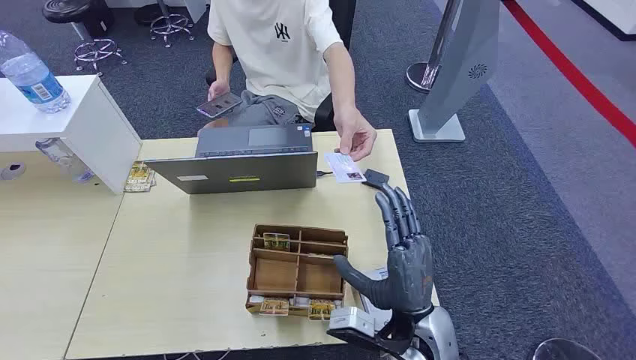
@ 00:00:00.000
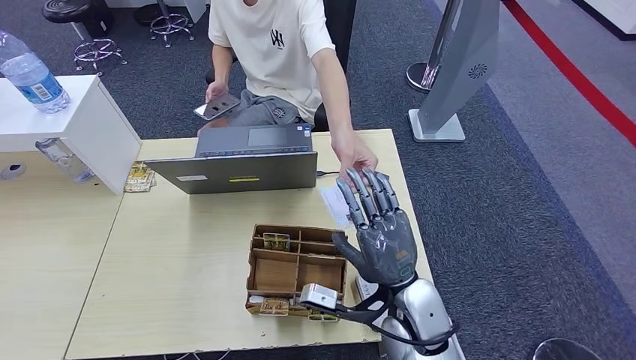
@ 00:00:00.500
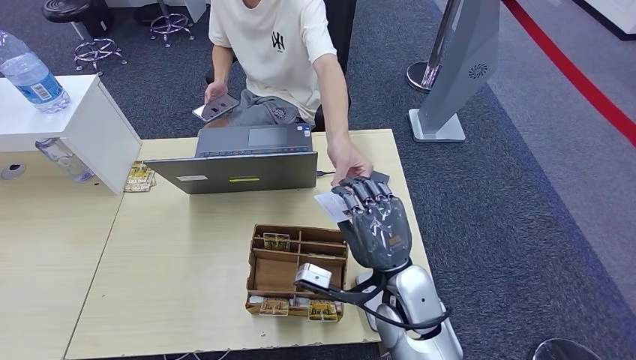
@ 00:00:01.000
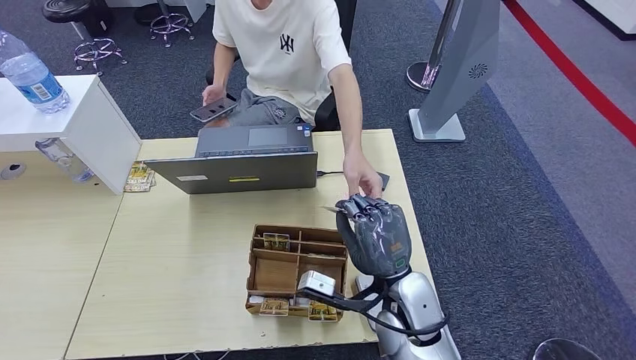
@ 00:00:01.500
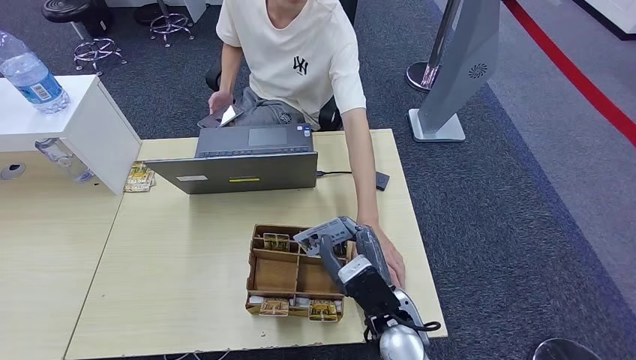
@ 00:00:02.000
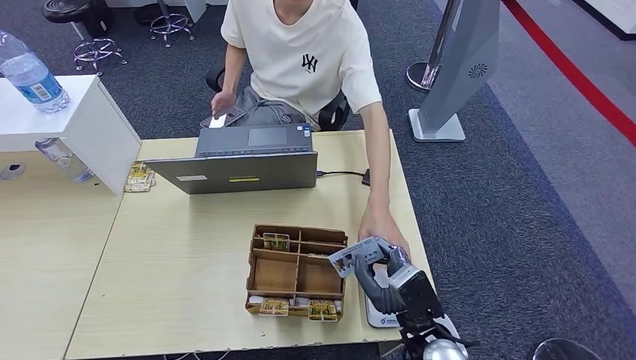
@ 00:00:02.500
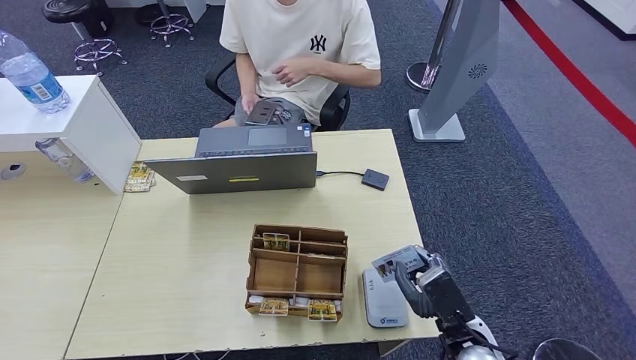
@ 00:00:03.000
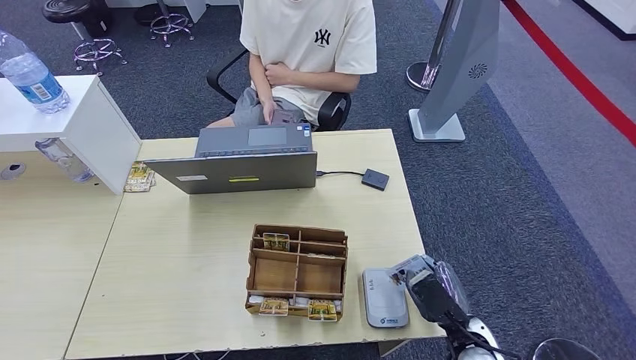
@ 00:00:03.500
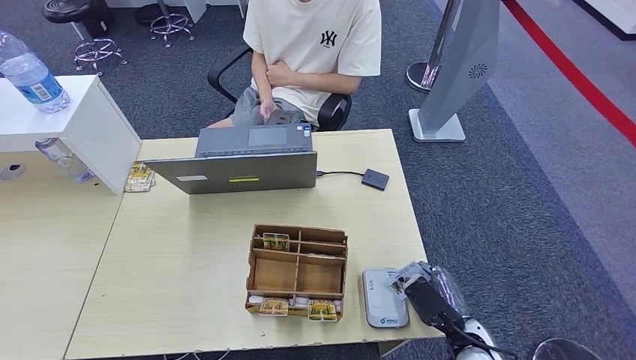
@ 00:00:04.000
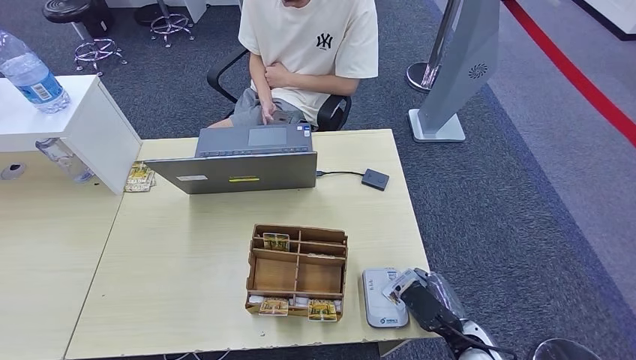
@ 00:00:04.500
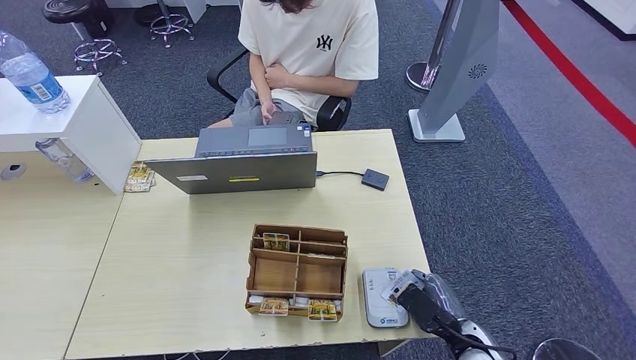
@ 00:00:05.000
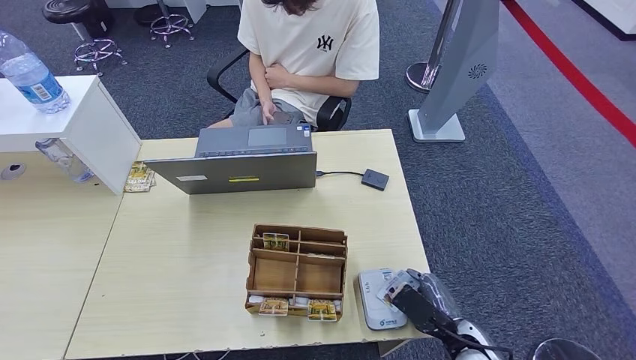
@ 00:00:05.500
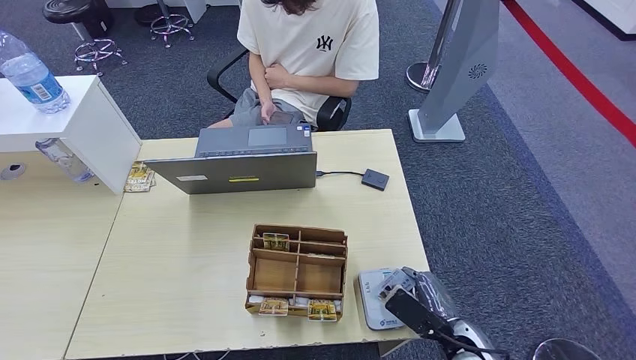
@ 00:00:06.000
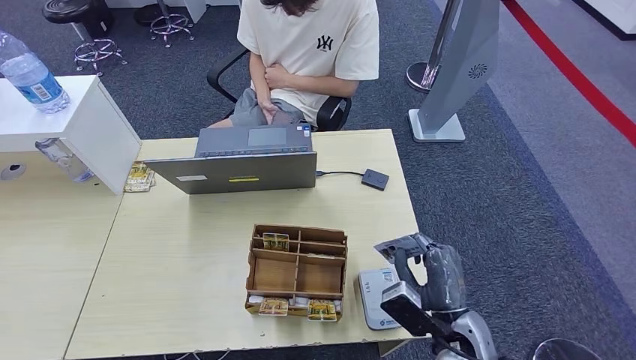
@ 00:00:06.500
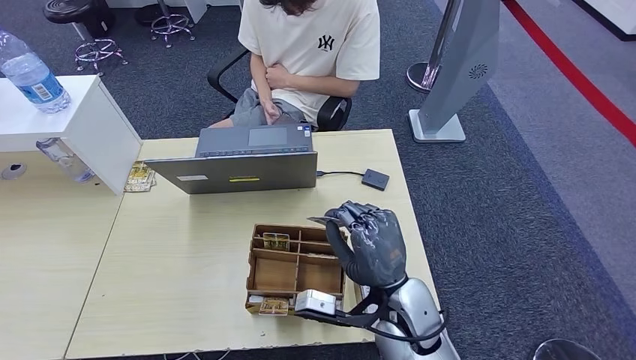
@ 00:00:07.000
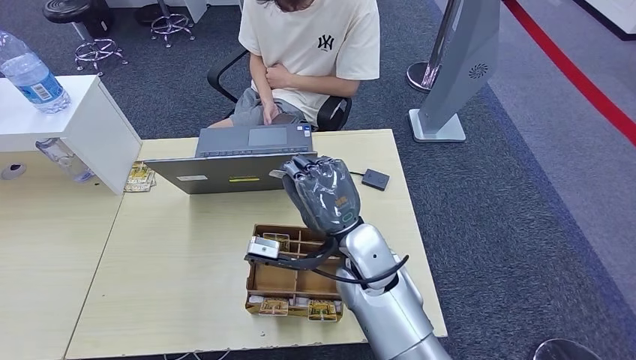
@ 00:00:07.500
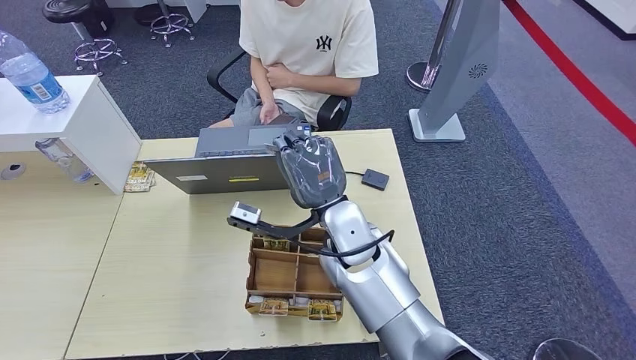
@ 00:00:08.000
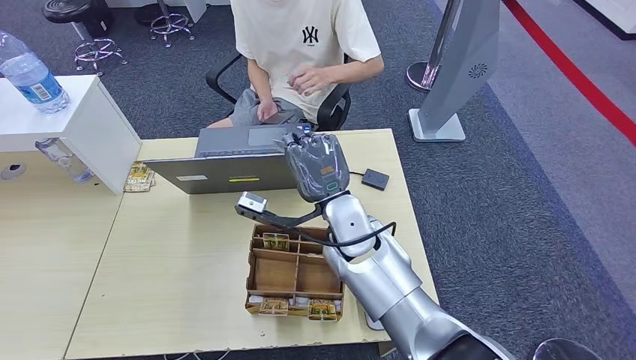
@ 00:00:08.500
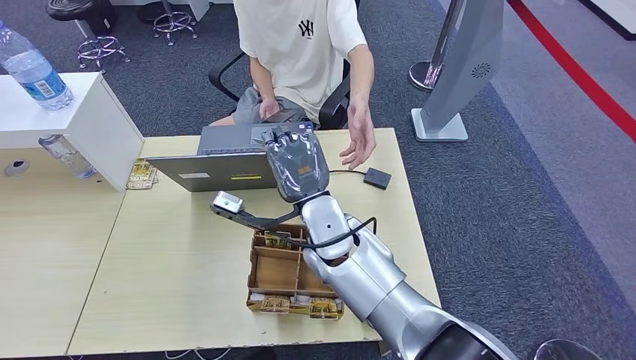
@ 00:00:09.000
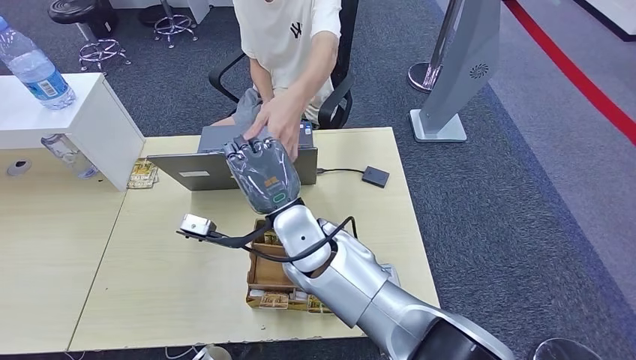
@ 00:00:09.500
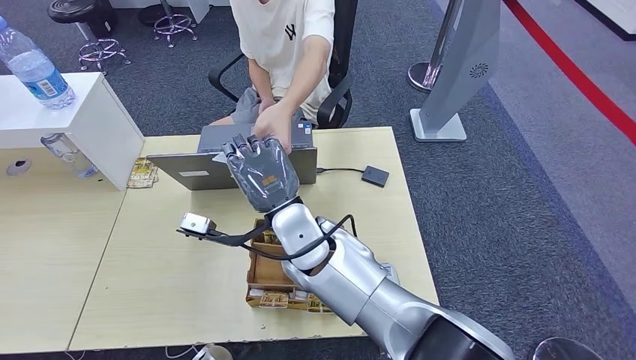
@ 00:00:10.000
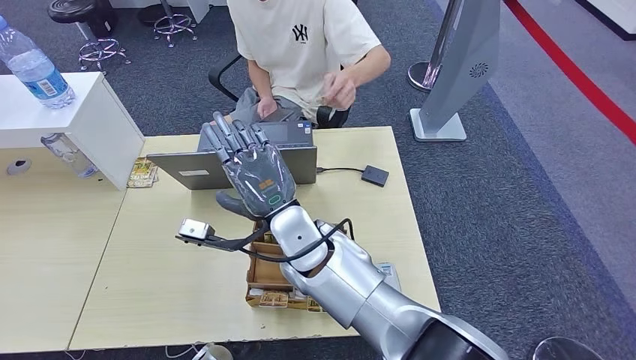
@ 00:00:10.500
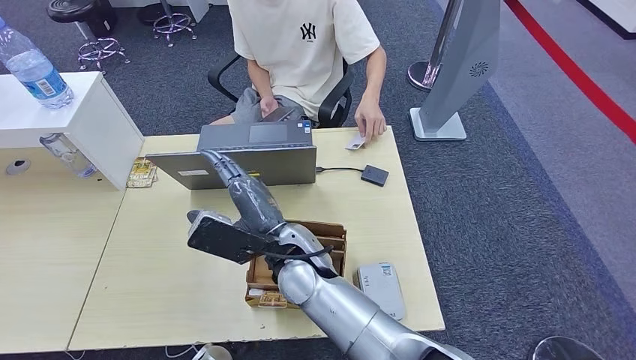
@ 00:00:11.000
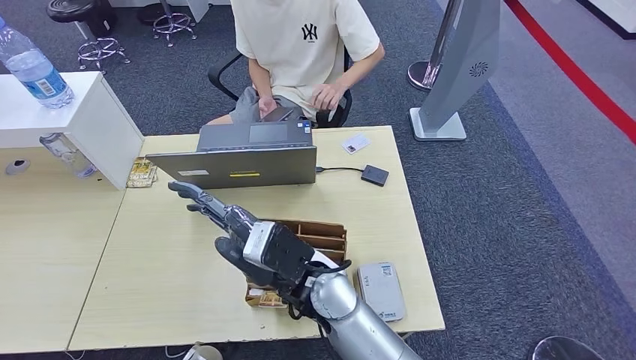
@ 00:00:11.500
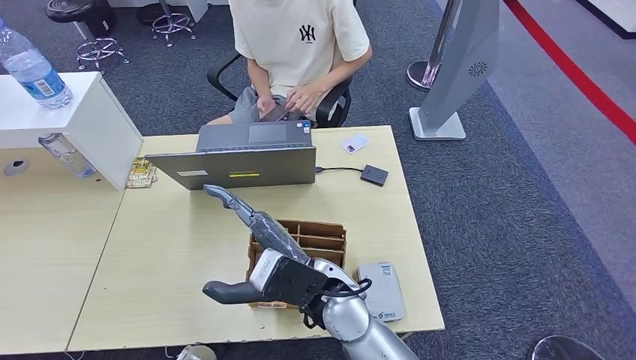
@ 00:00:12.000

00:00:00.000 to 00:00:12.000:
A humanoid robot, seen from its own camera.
Step, 00:00:00.500 to 00:00:03.500: Place the ID card on the card reader.
Step, 00:00:04.000 to 00:00:05.000: Take the ID card from the person's hand.
Step, 00:00:05.500 to 00:00:08.500: Place the ID card on the card reader.
00:00:02.000 to 00:00:04.000: The right hand shifts approximately 20 cm to the right and downward.
00:00:04.000 to 00:00:06.000: The hands move only a little.
00:00:06.000 to 00:00:08.000: The right hand moves to the left, upward and forward, approximately 30 cm.
00:00:10.000 to 00:00:12.000: The right hand shifts about 10 cm backward.

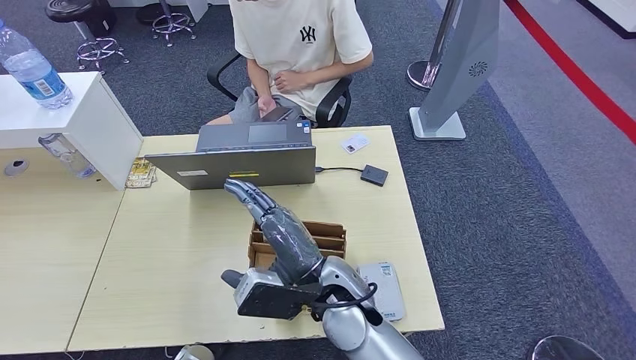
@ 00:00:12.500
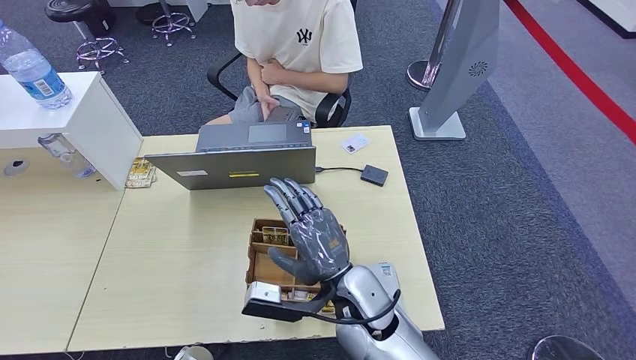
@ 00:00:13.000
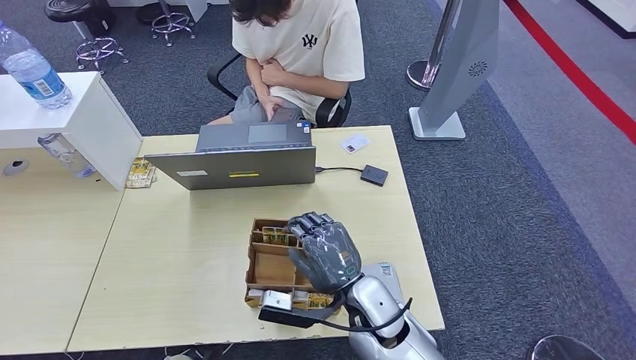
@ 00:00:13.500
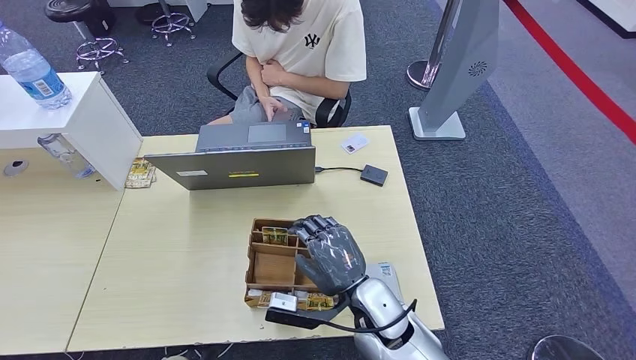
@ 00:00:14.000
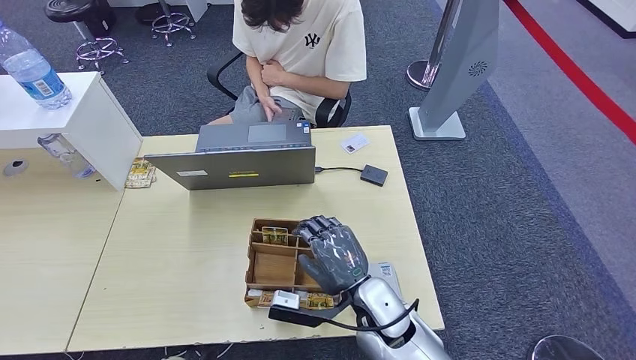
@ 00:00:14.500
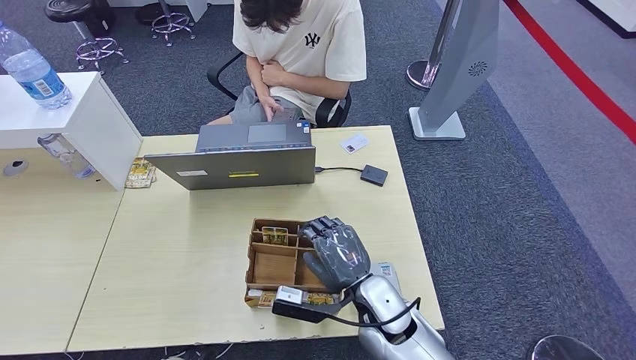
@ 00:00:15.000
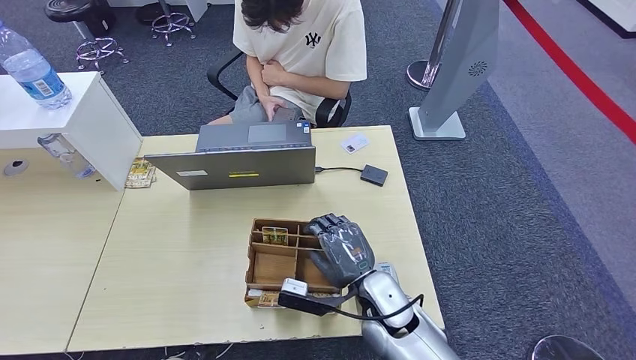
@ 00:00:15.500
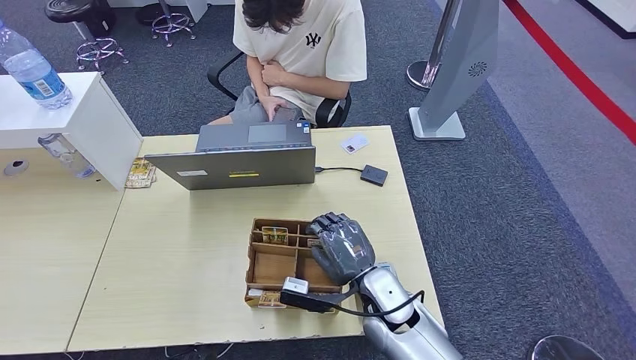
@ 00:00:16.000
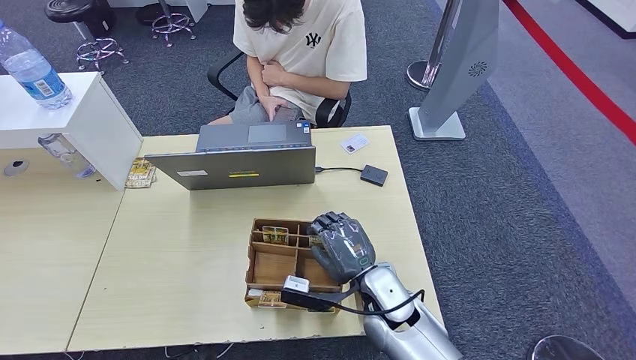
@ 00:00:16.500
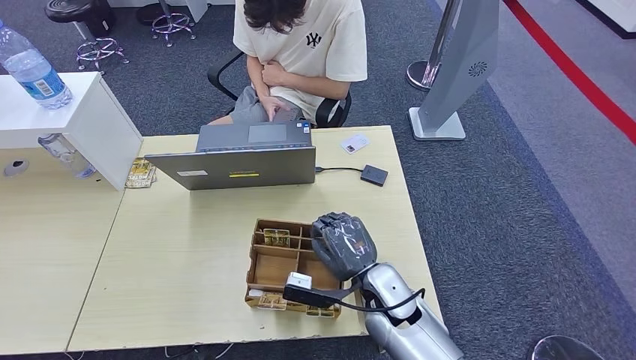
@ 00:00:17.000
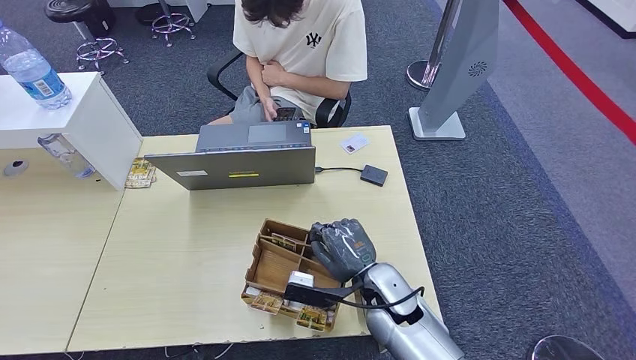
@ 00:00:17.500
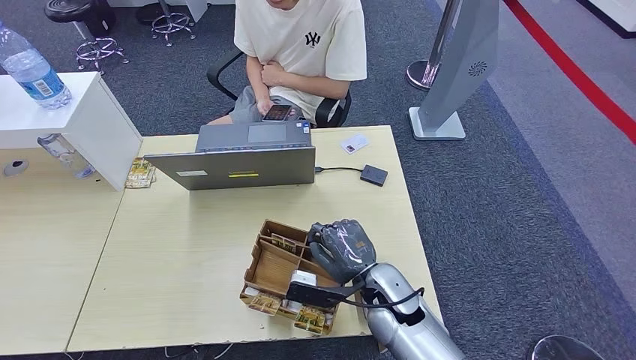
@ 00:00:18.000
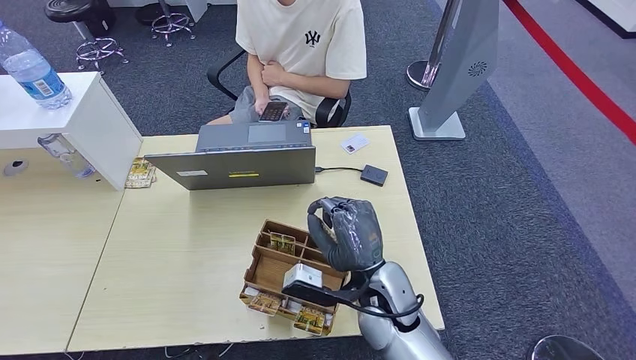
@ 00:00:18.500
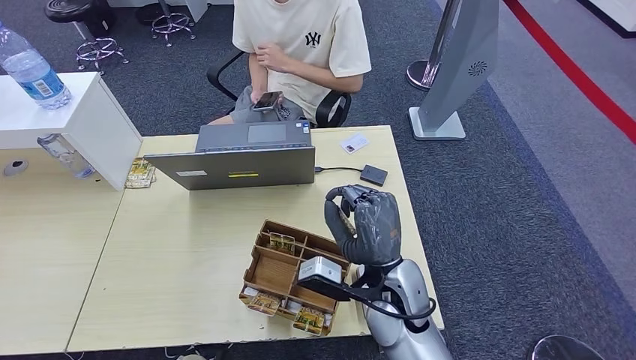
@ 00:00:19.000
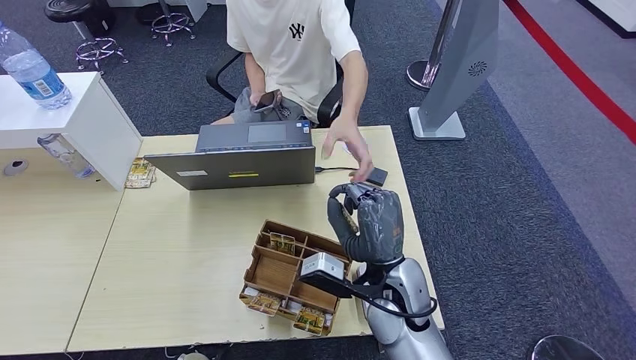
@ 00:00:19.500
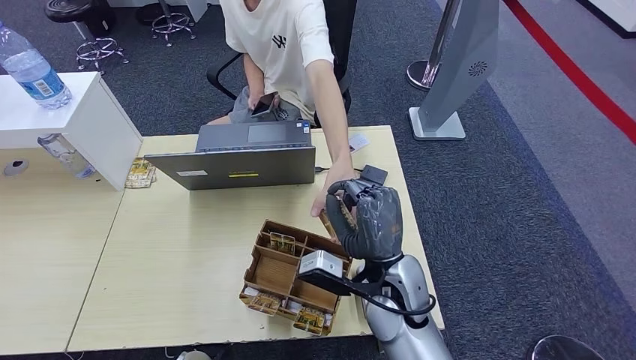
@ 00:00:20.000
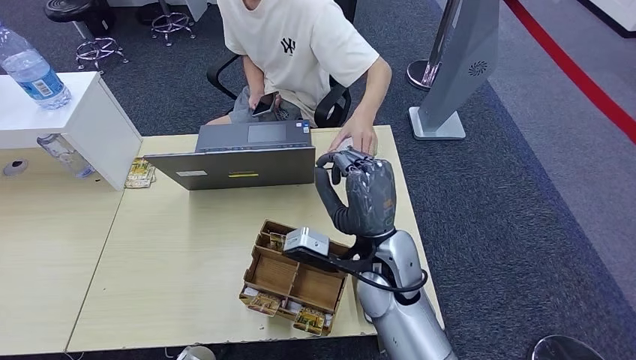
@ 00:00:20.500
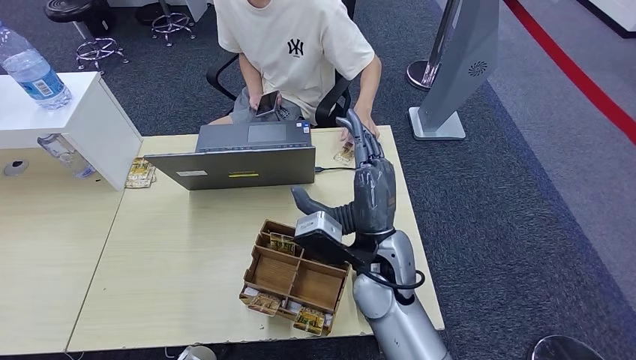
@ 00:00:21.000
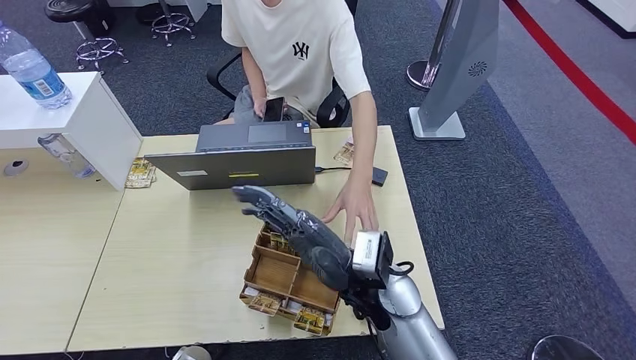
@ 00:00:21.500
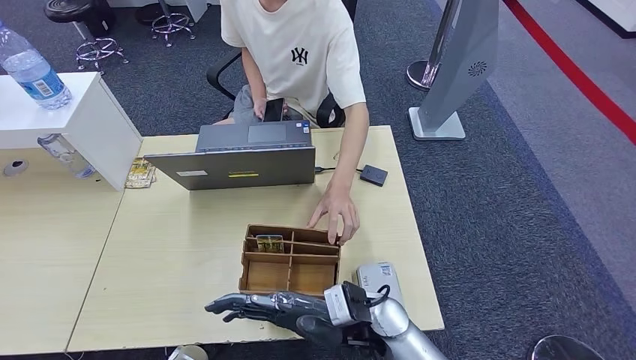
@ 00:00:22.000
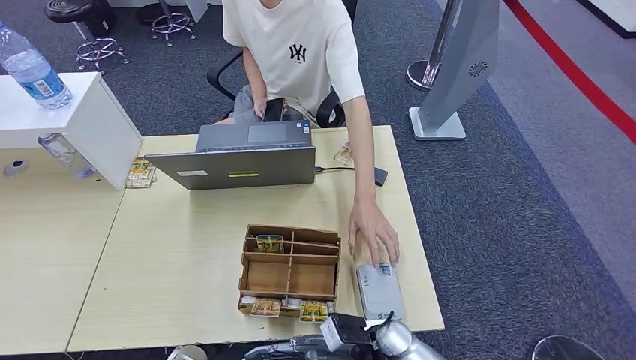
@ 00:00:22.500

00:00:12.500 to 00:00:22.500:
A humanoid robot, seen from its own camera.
Step, 00:00:13.000 to 00:00:19.500: Pick up the room key from the key card box.
Step, 00:00:20.000 to 00:00:22.500: Hand the room key to the person.
00:00:12.500 to 00:00:14.500: The right hand shifts some 10 cm downward and to the right.
00:00:14.500 to 00:00:16.500: The hands move only a little.
00:00:16.500 to 00:00:18.500: The right hand ends up roughly 5 cm from where it was.
00:00:18.500 to 00:00:20.500: The left hand changes place by approximately 5 cm; the right hand shifts about 5 cm upward.
00:00:20.500 to 00:00:22.500: The right hand shifts roughly 20 cm downward and backward.
